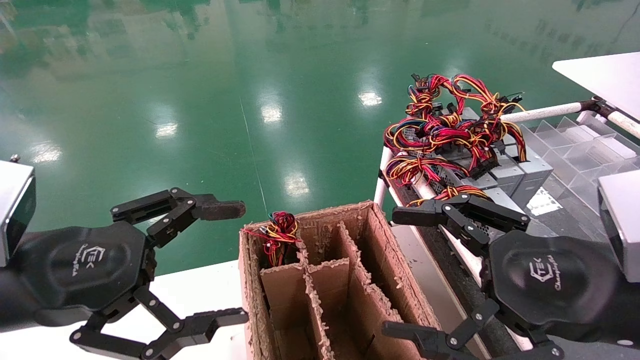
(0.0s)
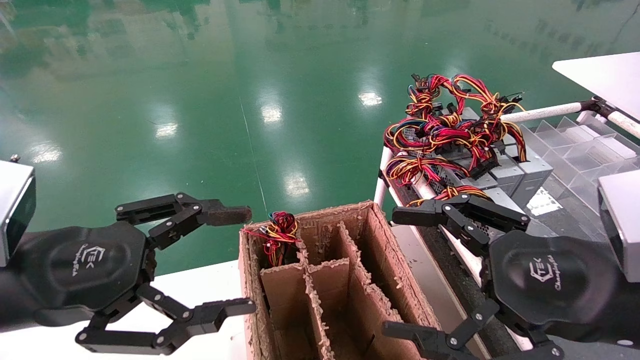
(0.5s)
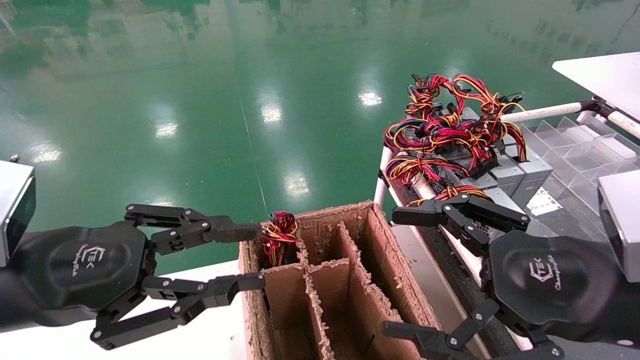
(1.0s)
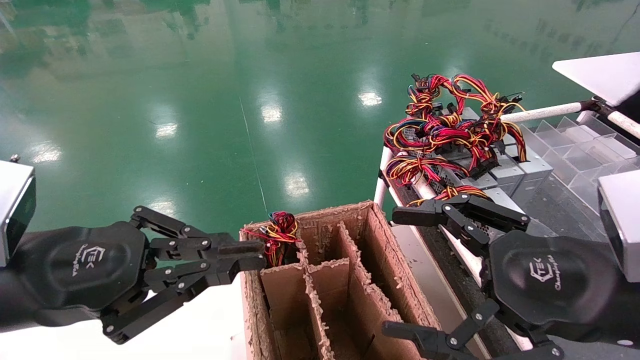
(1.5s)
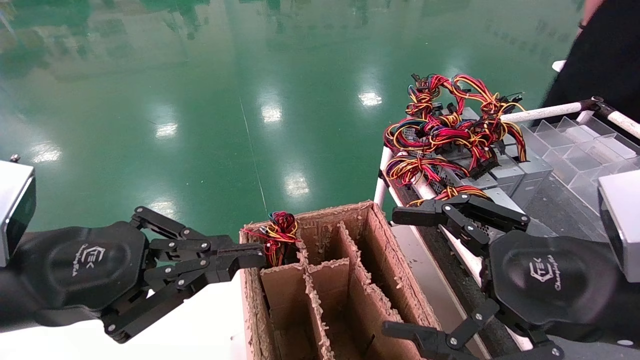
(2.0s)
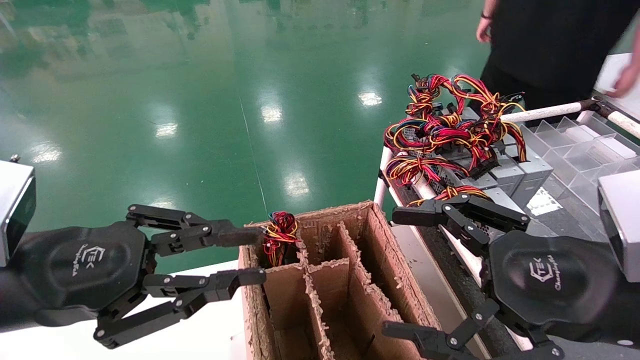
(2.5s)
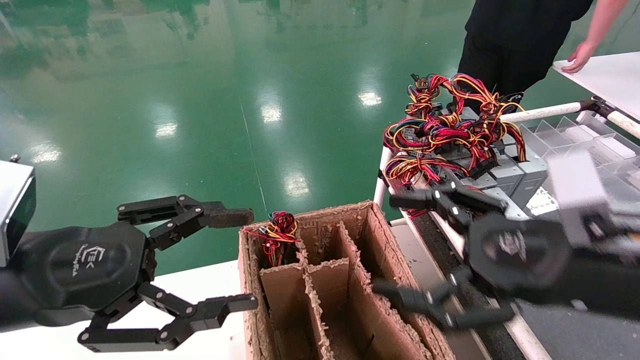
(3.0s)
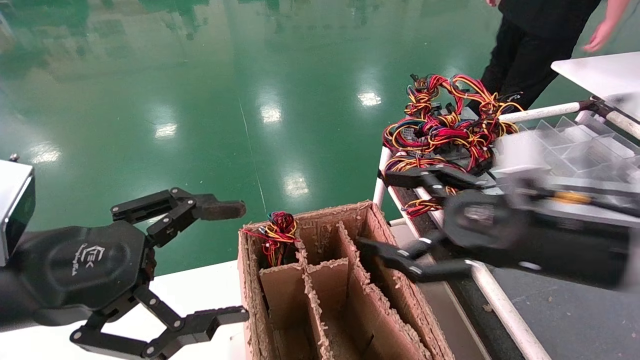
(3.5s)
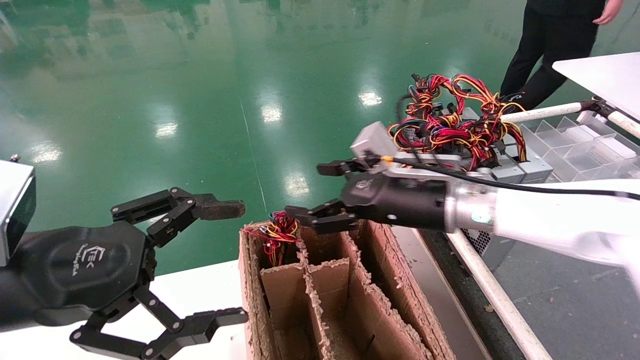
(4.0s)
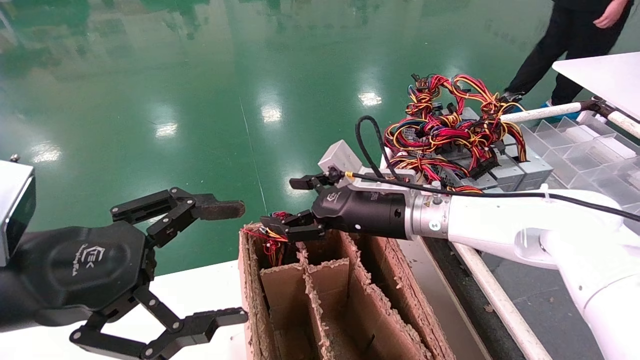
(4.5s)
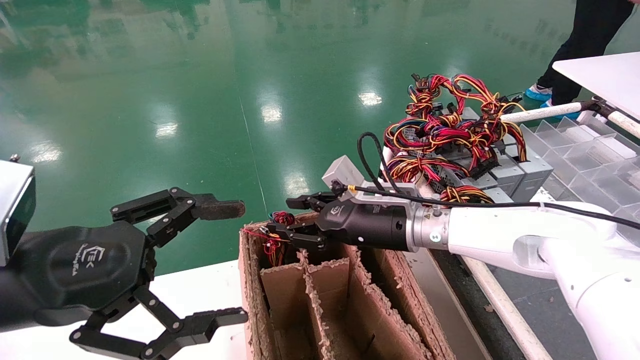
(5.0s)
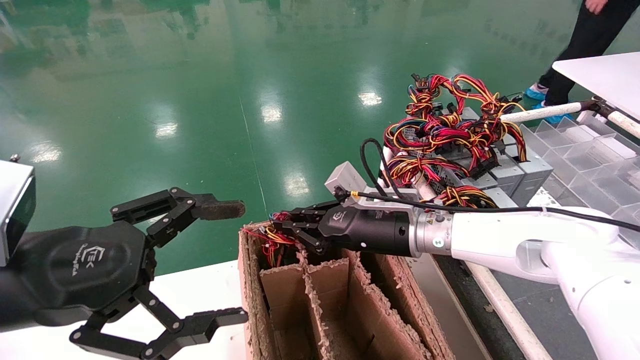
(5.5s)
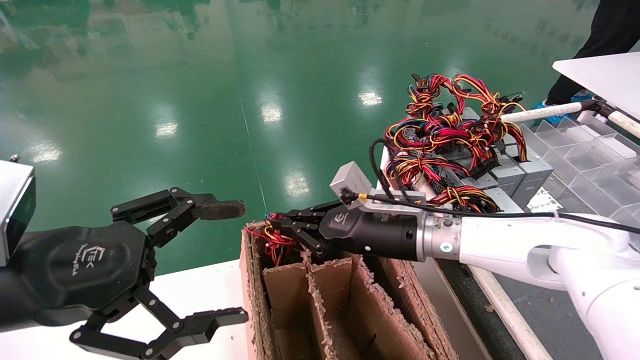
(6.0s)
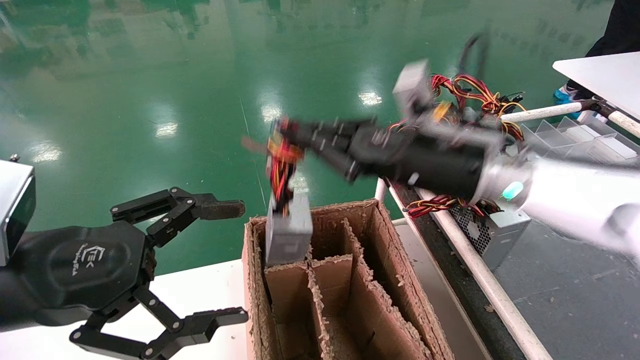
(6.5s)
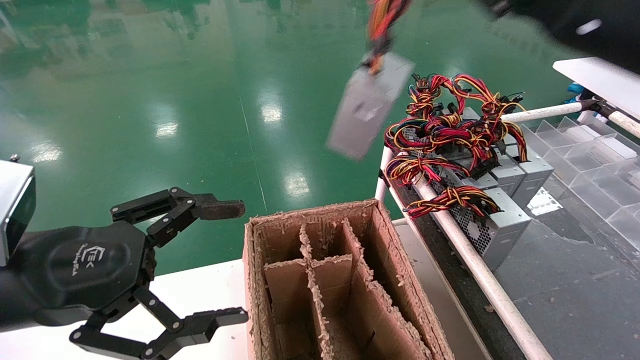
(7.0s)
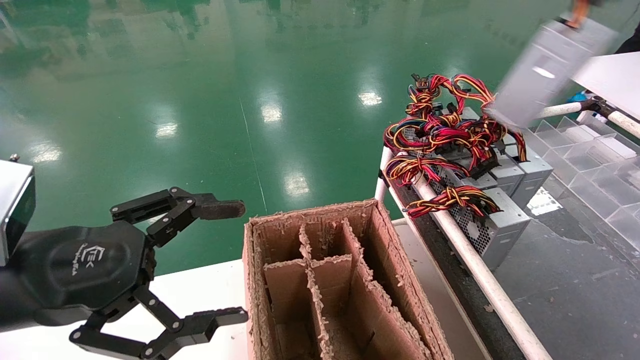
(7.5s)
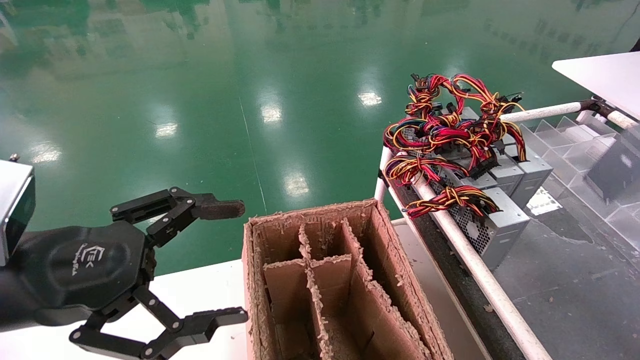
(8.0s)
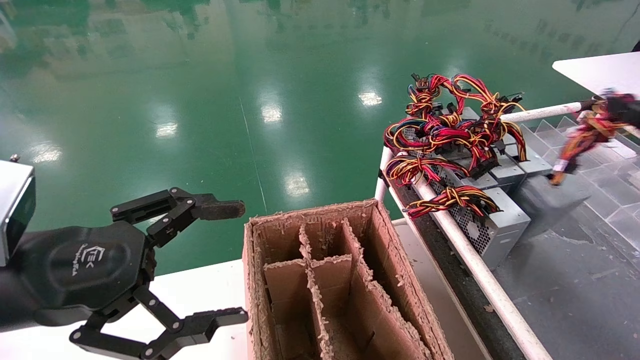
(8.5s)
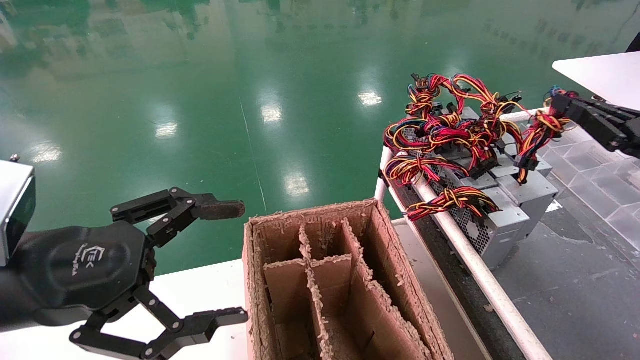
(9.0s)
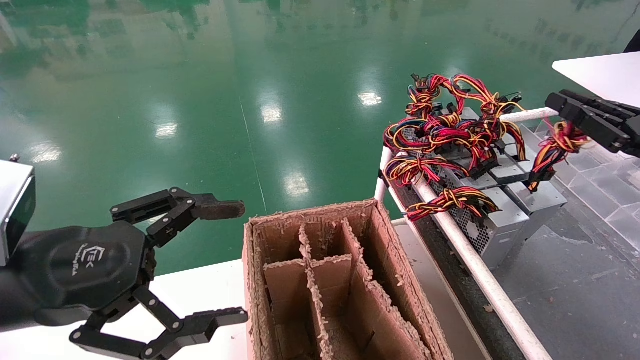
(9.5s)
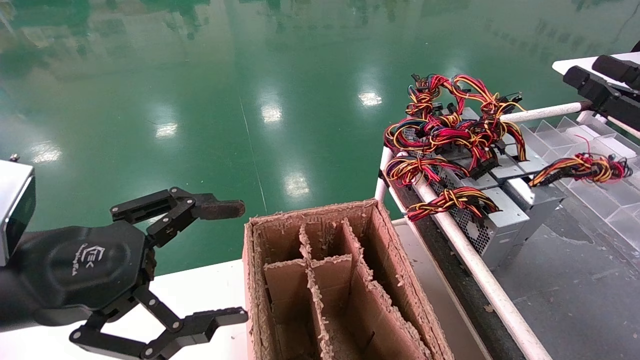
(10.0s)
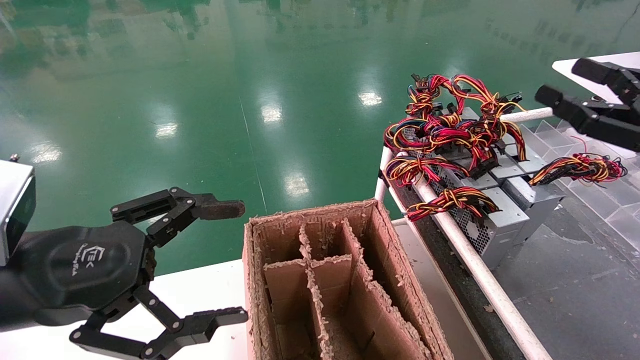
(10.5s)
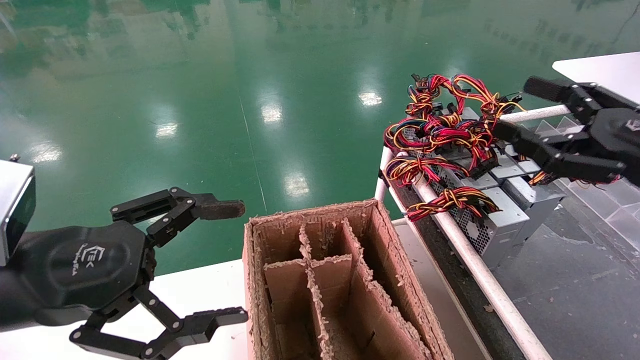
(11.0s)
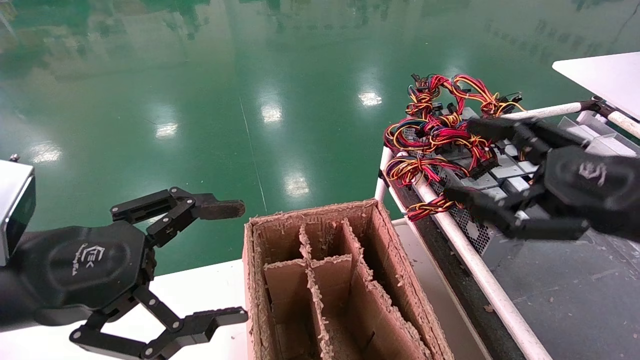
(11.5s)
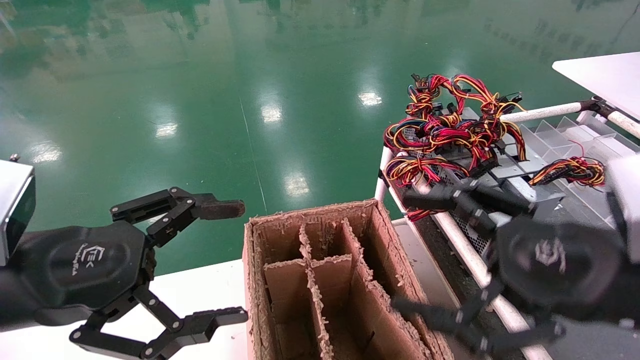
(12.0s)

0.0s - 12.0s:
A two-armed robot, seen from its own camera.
Step, 2.0s - 5.5s: Grab and lift the power supply from the large box.
Step, 6.0s - 9.5s: Place the power supply on the operating table.
0.0s - 2.0s: The left gripper closes its fingers.
2.0s - 4.0s: The right gripper moves forward and to the left, approximately 25 cm. Meanwhile the left gripper opens.
4.0s - 6.0s: The right gripper changes place by some 5 cm, and closes up.
6.0s - 8.0s: The right gripper heads to the right, covering about 40 cm.
8.0s - 10.0s: The right gripper shifts about 10 cm to the left and forward, and opens its fingers.
10.0s - 12.0s: The right gripper goes some 20 cm to the left and backward, and opens.

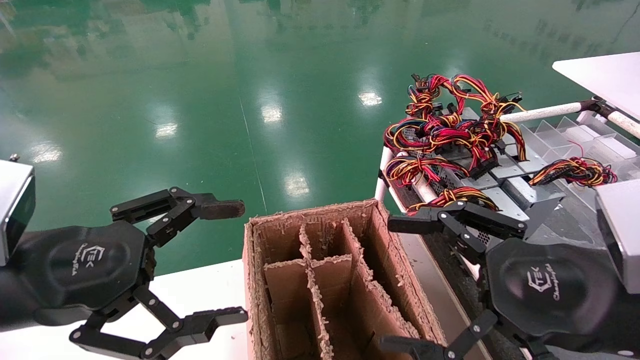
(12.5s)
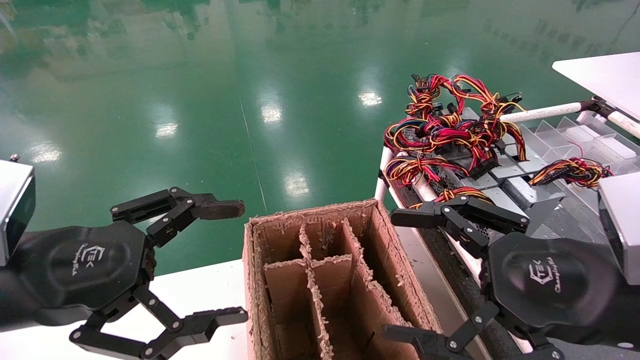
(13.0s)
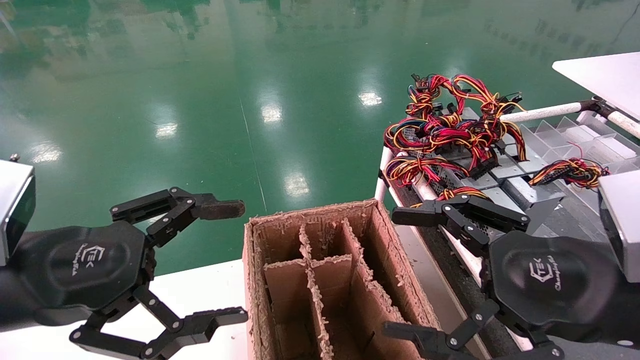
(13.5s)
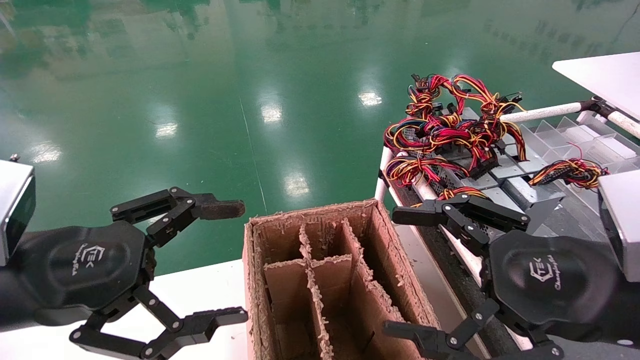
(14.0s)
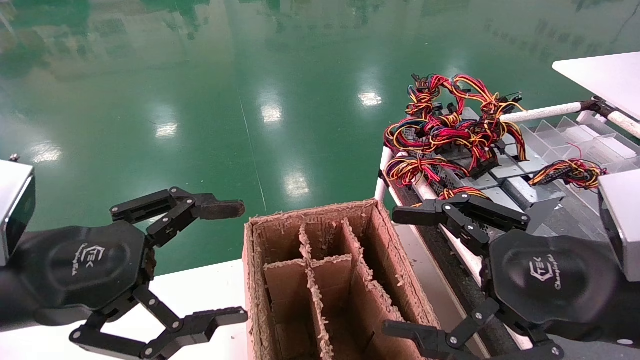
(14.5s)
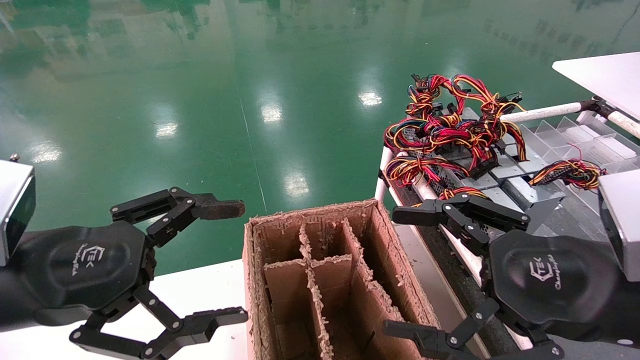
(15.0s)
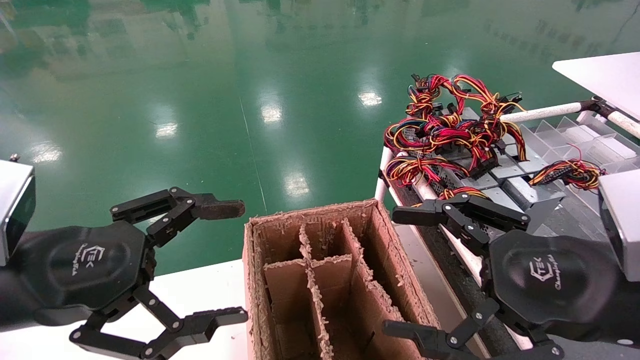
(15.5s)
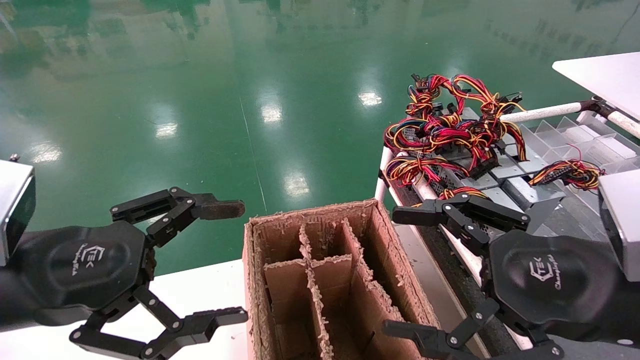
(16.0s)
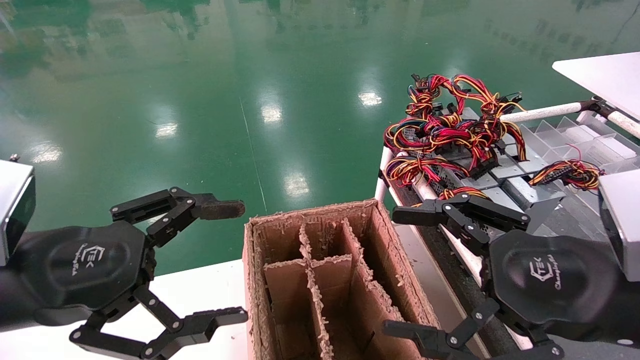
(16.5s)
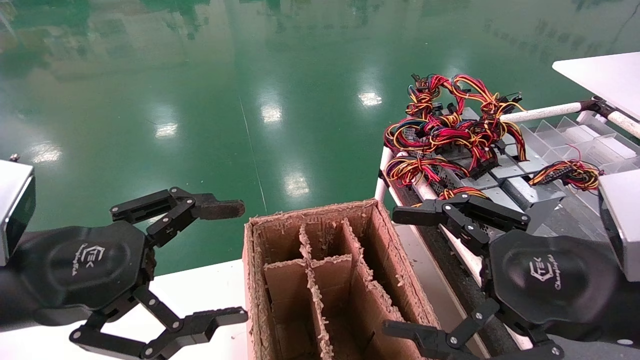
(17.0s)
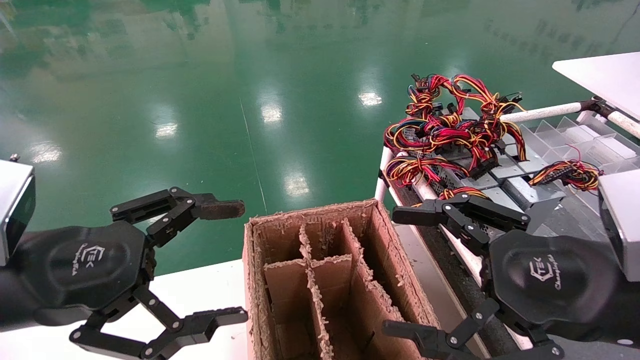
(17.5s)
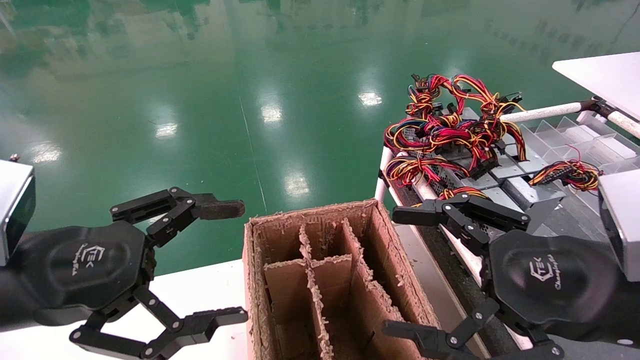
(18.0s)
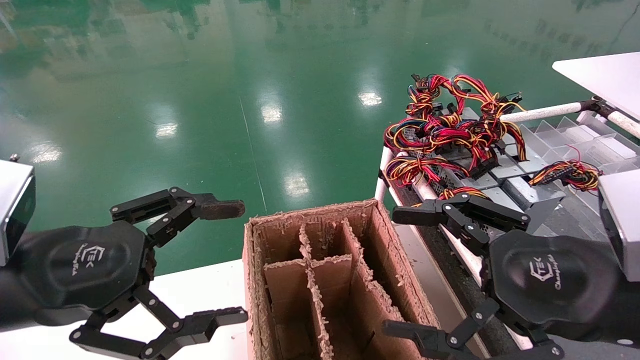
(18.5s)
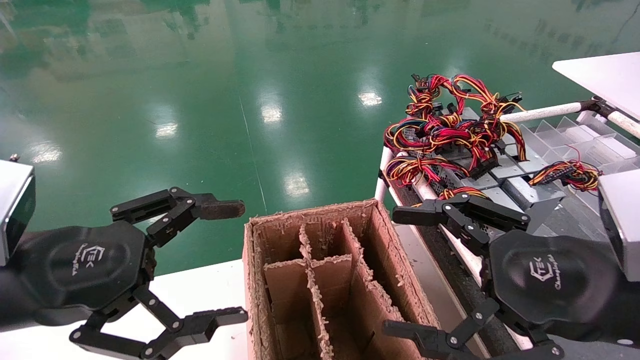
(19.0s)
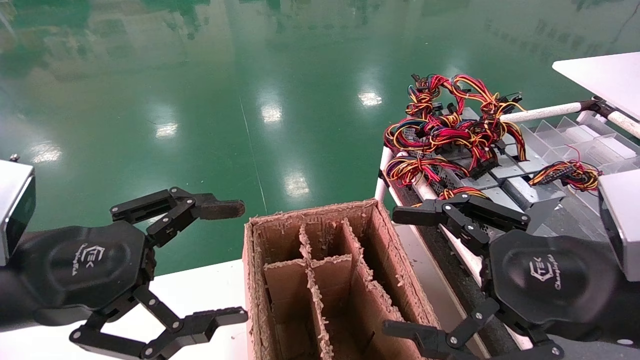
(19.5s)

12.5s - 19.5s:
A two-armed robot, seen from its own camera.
12.5s - 19.5s: Both grippers stay about where they are.

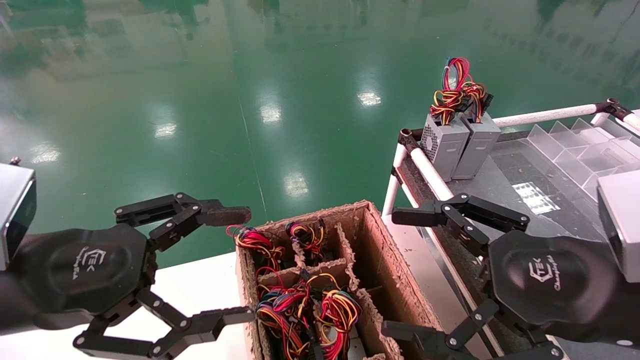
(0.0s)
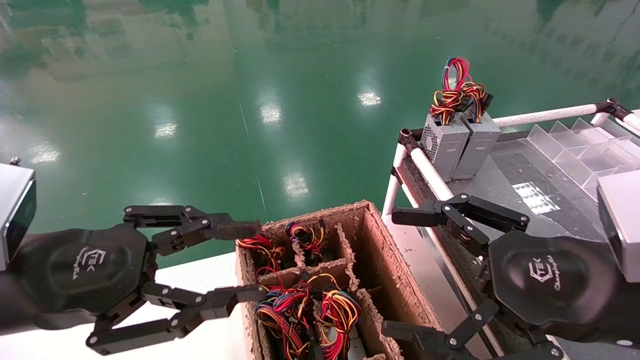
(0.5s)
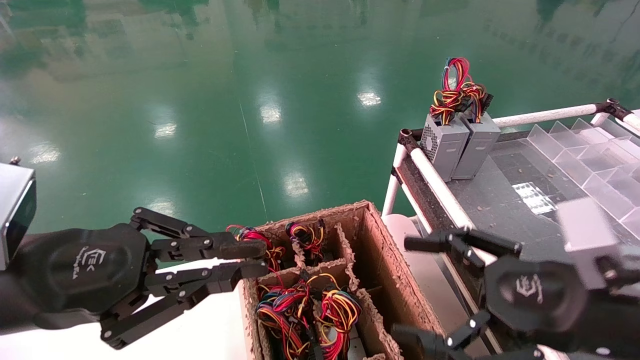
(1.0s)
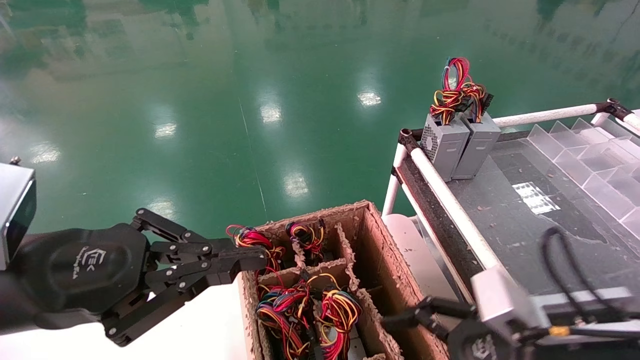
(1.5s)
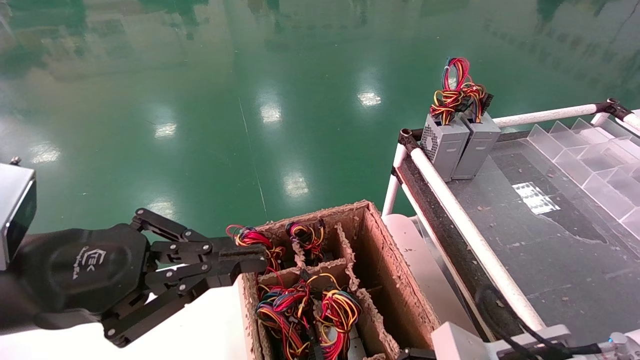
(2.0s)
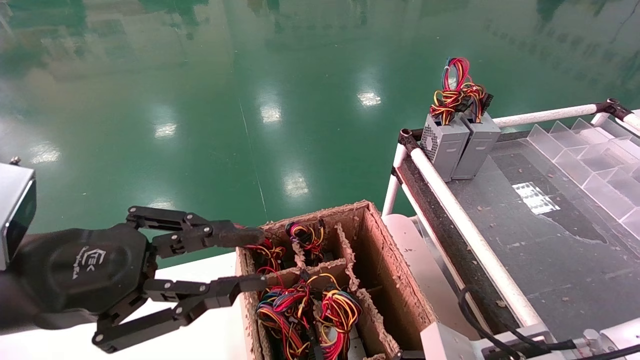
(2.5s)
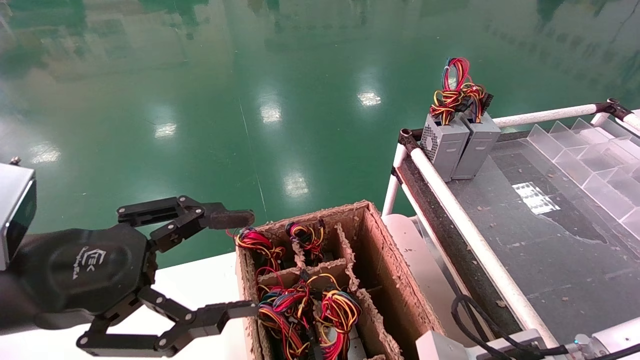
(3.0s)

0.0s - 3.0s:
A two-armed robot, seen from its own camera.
0.0s - 1.5s: The right gripper goes roughly 10 cm downward; the left gripper closes up.
1.5s - 3.0s: The left gripper opens its fingers; the right gripper travels downward by about 5 cm, and closes its fingers.
